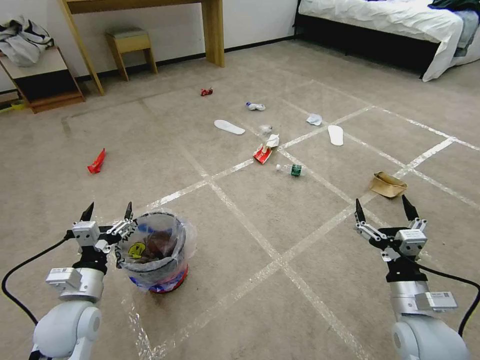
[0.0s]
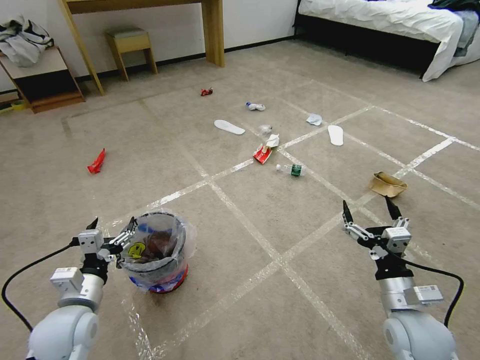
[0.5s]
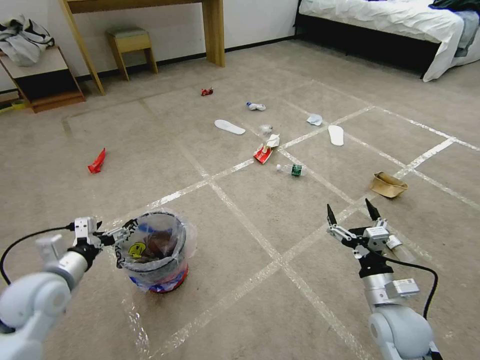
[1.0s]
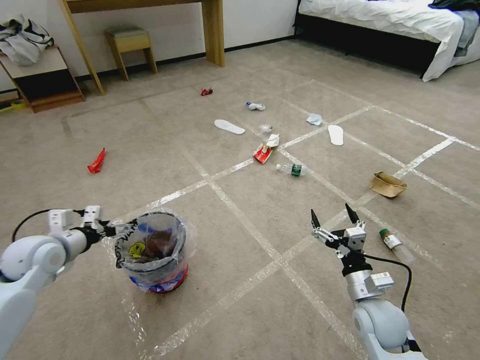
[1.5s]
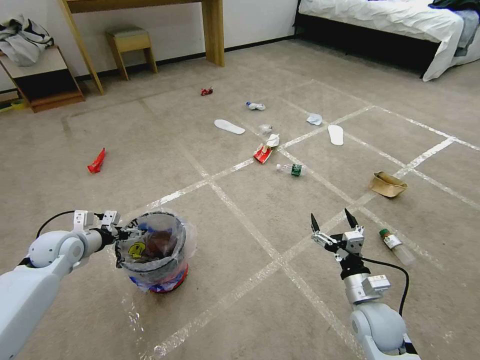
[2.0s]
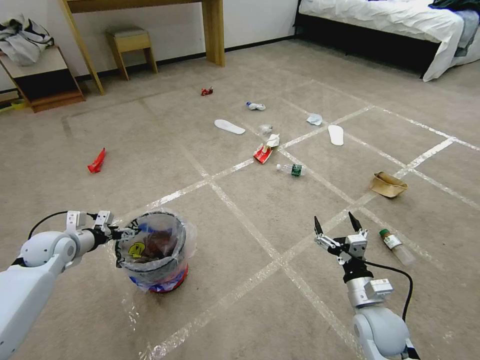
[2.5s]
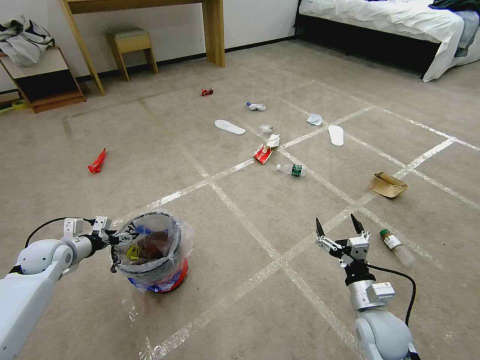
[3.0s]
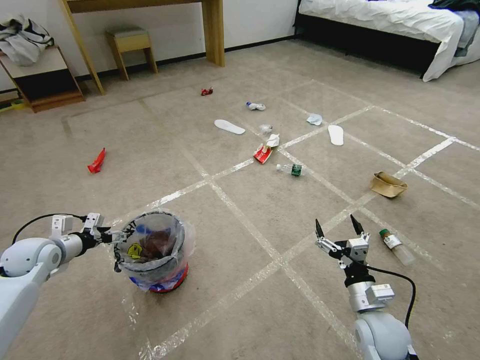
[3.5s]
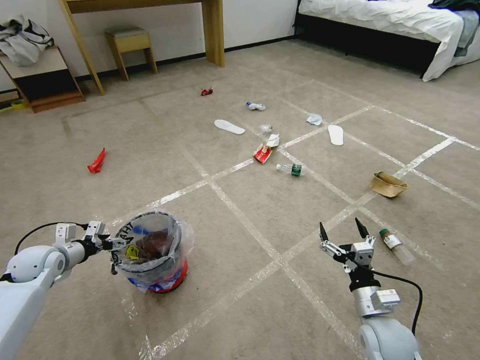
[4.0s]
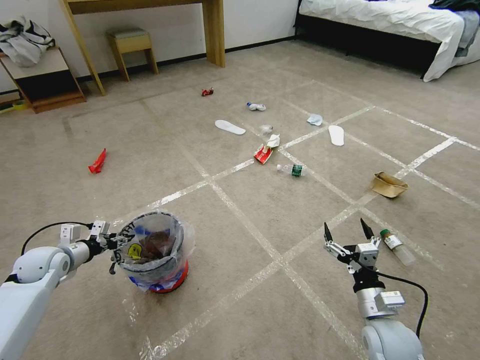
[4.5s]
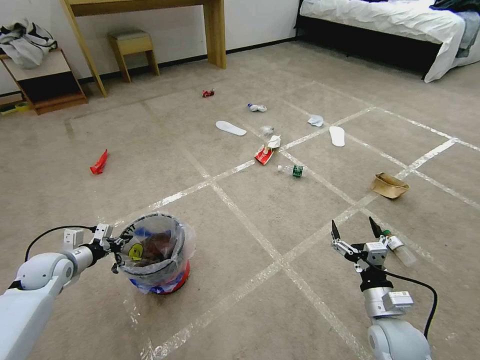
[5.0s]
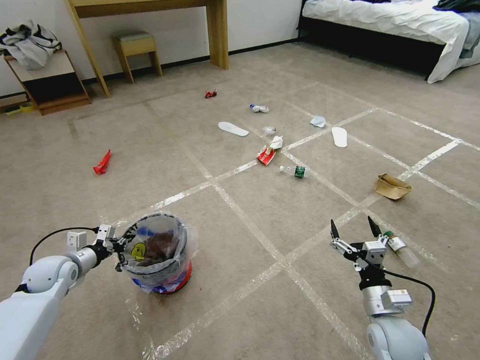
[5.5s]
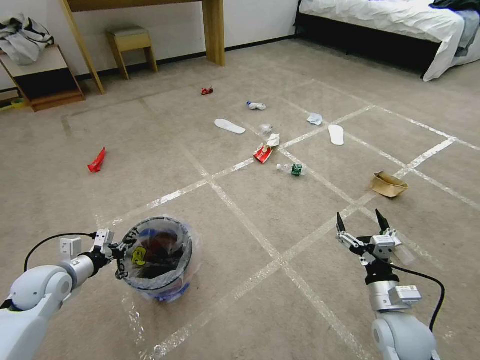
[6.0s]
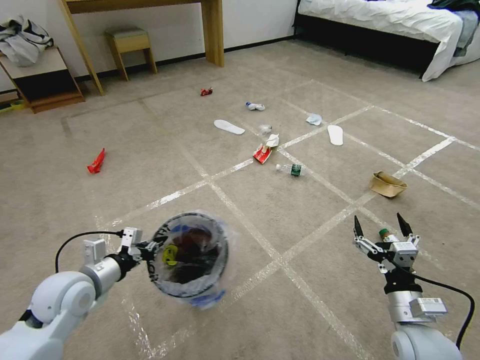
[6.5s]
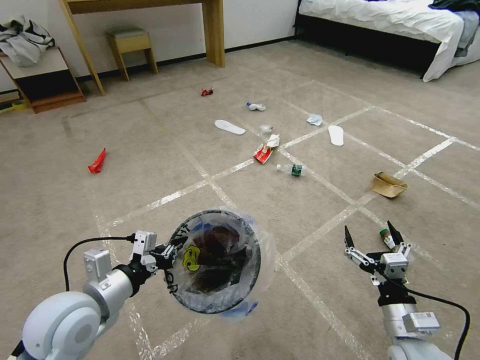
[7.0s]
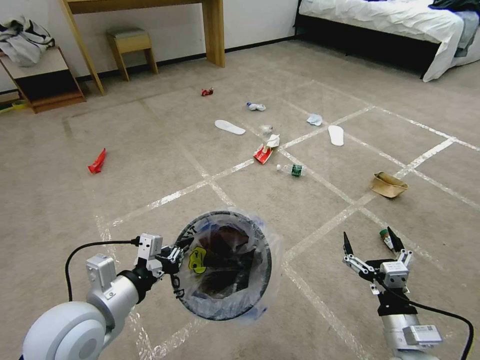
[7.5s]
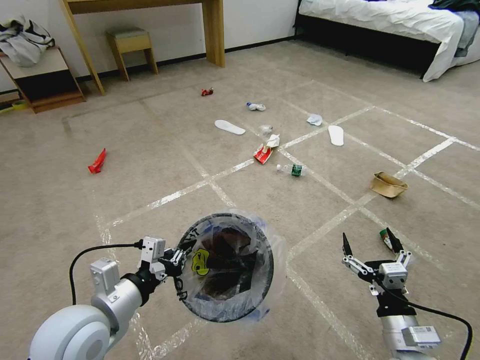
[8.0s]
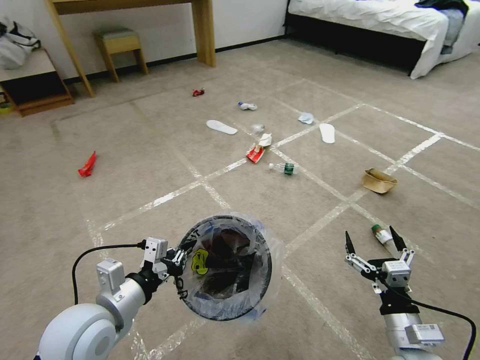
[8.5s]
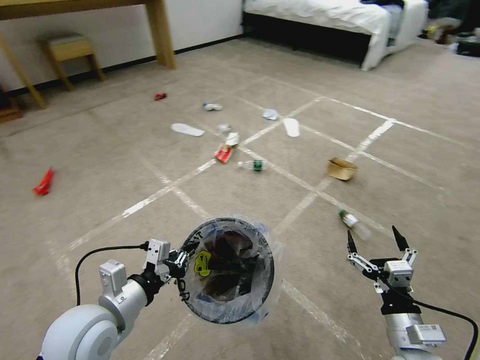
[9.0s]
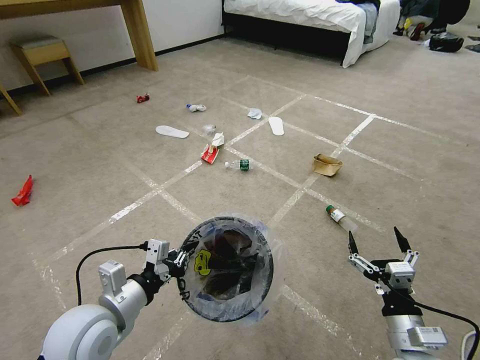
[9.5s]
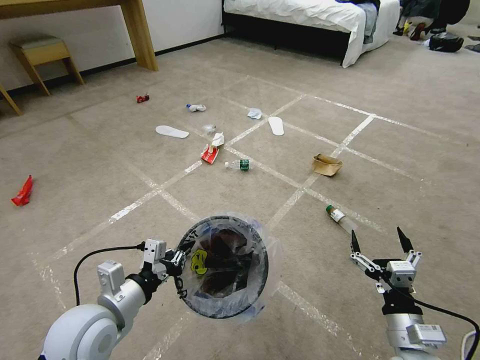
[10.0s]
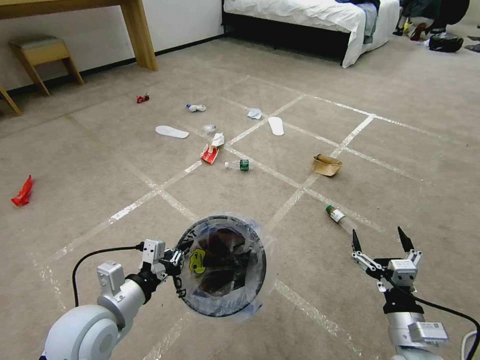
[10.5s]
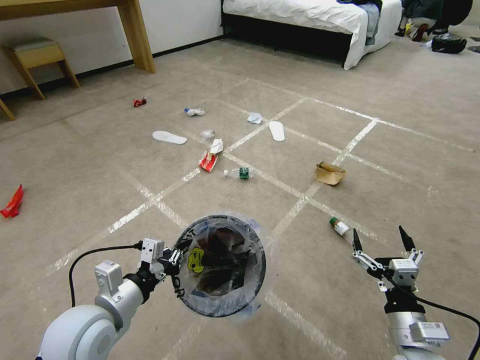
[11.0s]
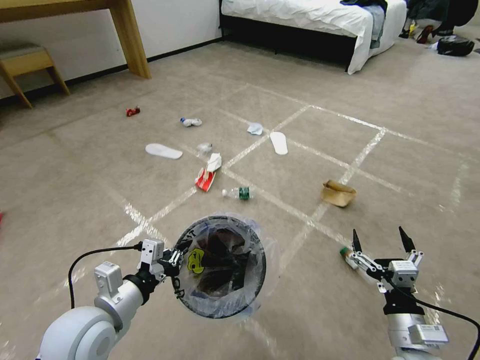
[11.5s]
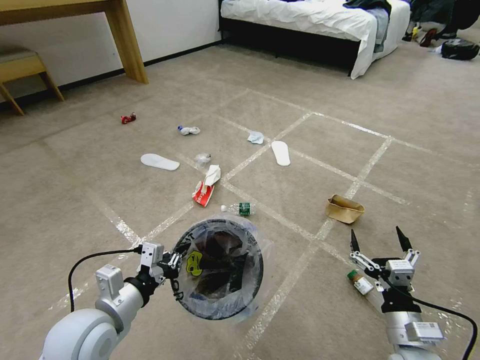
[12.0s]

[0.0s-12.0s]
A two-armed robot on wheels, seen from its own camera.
Task of the whole recording: Pick up the trash bin and place the garbage on the floor into it.
2.0s to 4.0s: The left gripper goes about 5 cm to the left.
4.0s to 6.0s: The left gripper shifts about 10 cm backward and to the right, and closes its fingers.
6.0s to 8.0s: The left gripper goes roughly 25 cm to the right, backward and upward. The right gripper shifts approximately 5 cm backward.

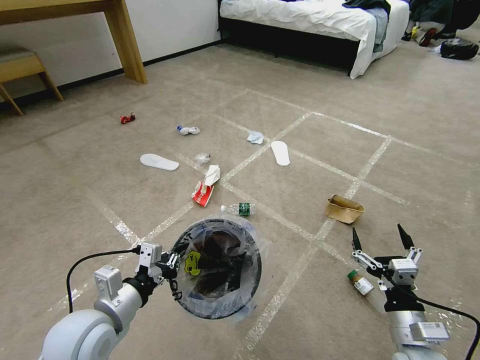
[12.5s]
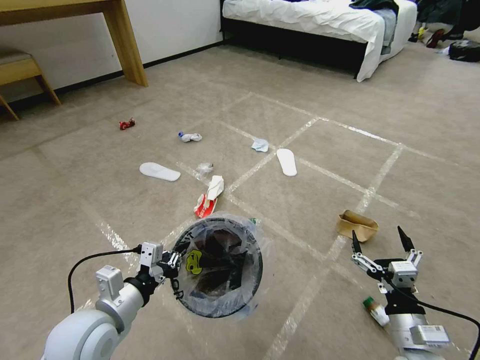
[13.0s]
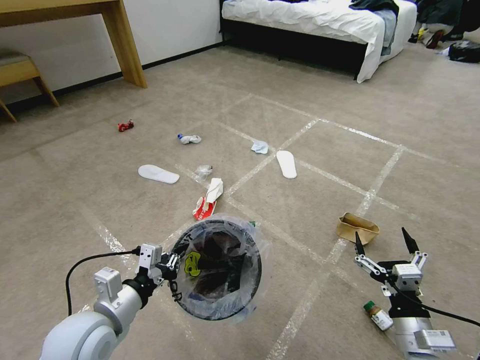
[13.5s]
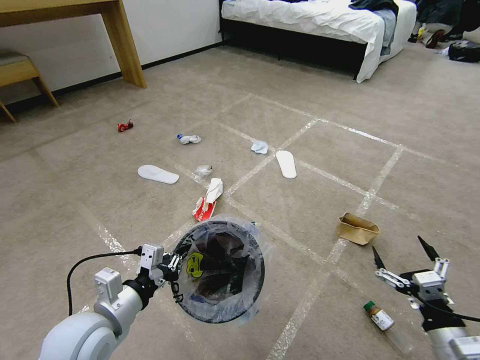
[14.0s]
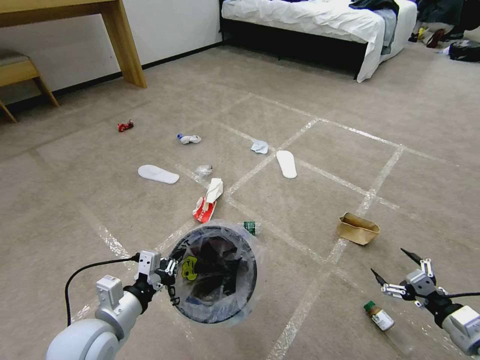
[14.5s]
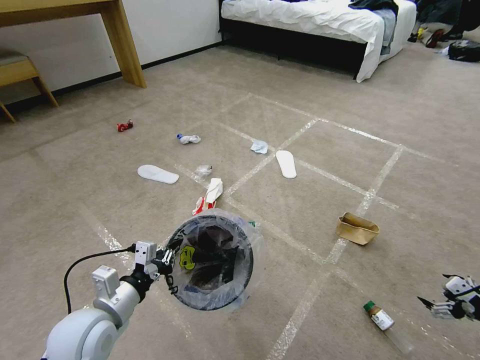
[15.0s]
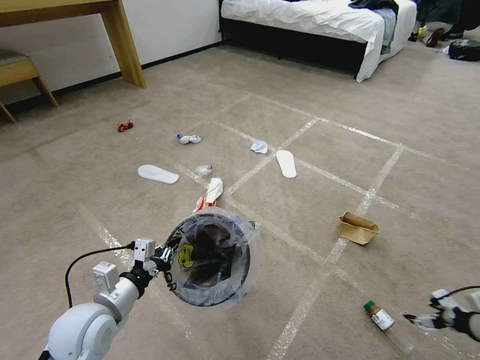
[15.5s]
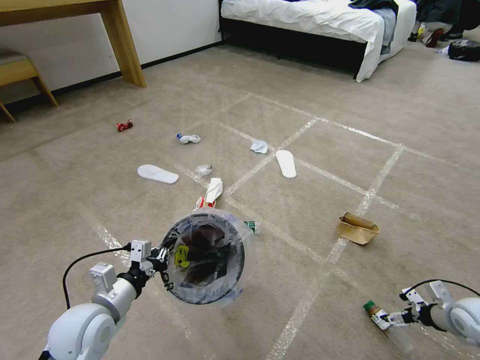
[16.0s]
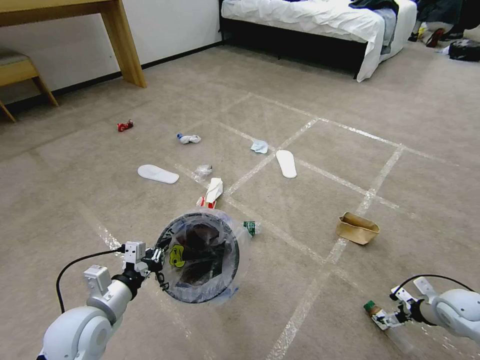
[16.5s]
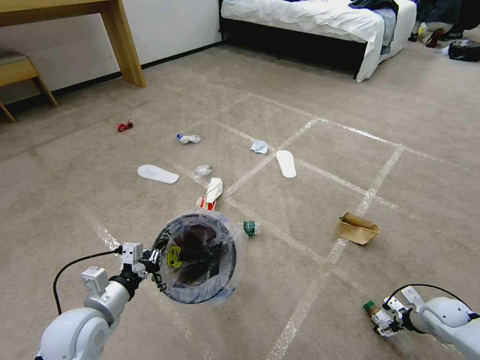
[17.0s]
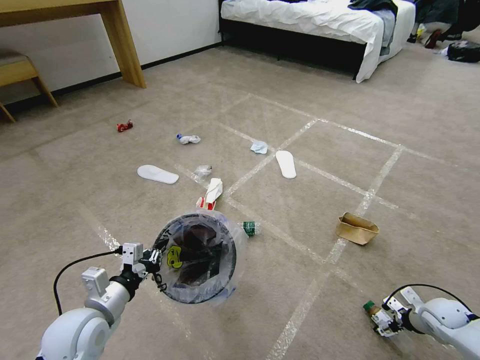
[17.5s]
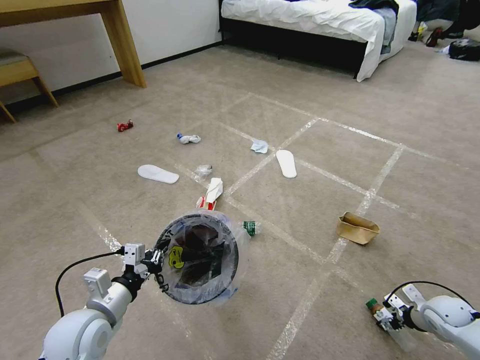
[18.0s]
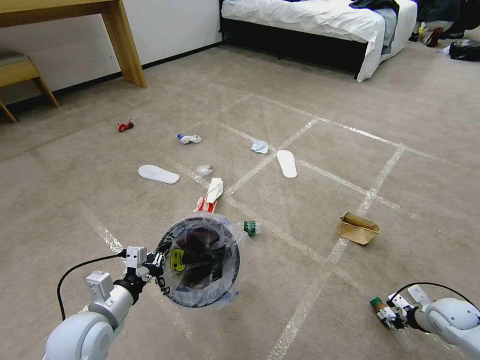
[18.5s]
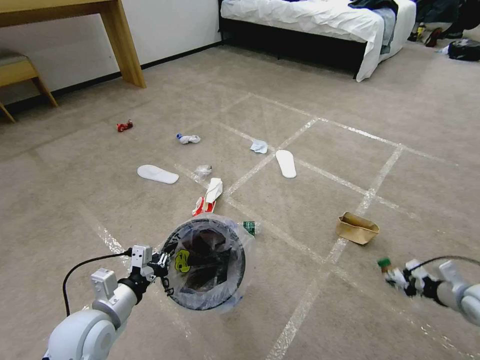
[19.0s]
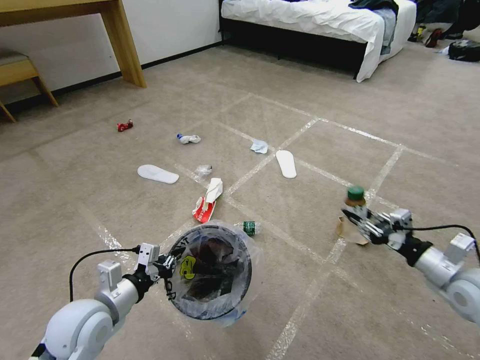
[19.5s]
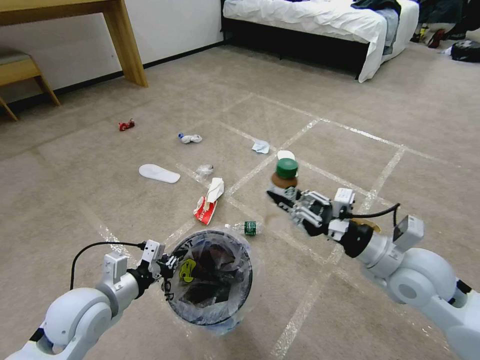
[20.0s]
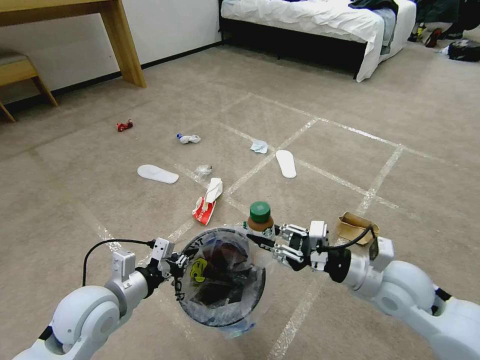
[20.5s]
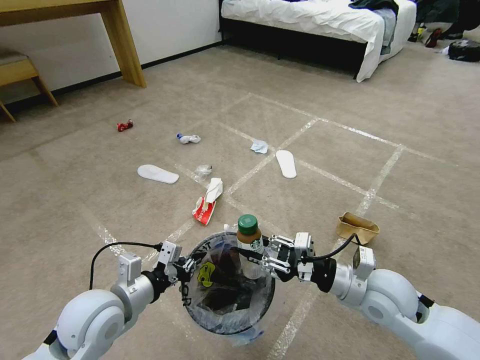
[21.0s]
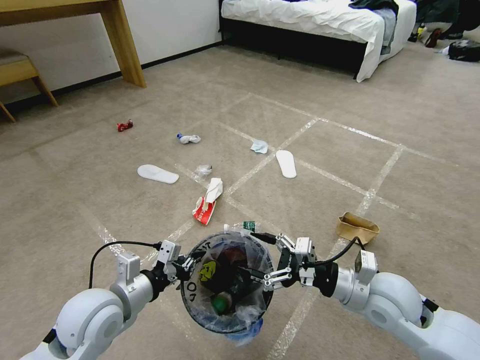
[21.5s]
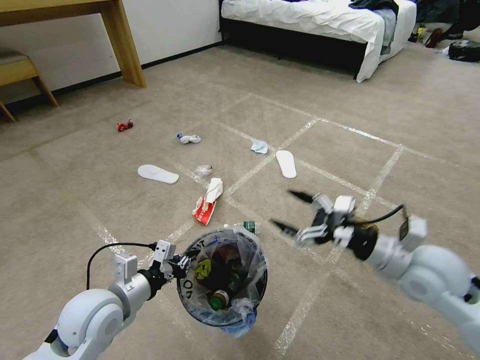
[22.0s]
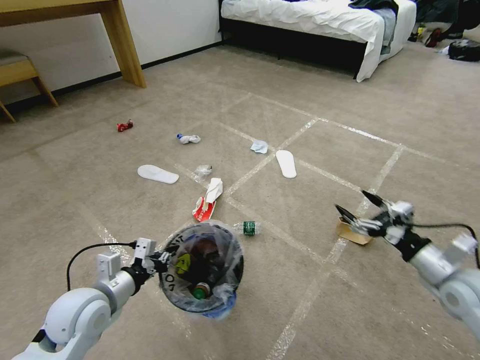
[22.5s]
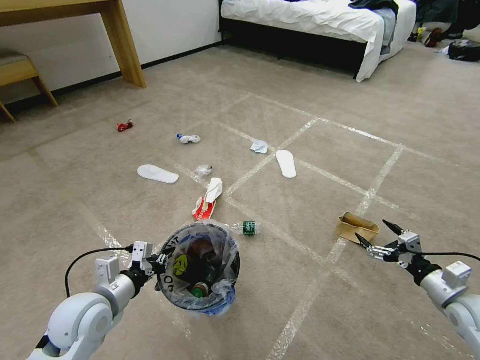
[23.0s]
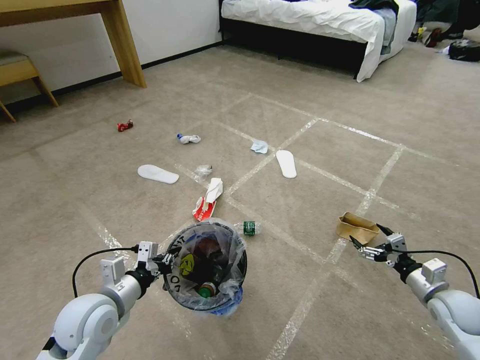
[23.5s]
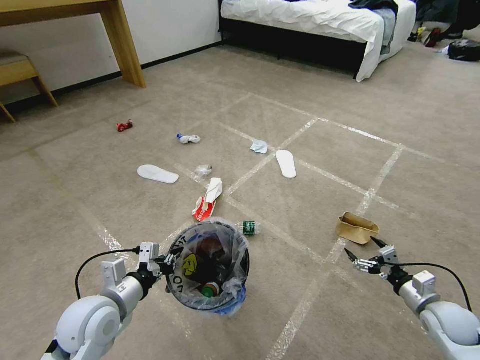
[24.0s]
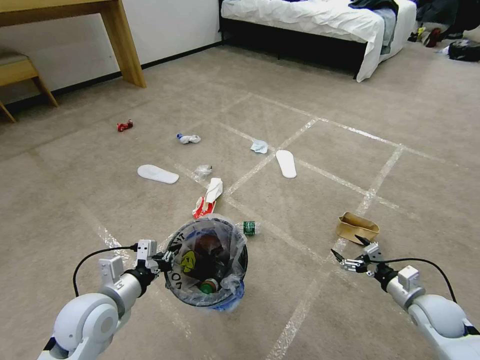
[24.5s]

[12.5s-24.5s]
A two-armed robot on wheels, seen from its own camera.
Task of the whole recording: Pick up the trash bin and place the garbage on the floor into it.
12.5s to 14.5s: The right gripper heads to the right, covering some 15 cm.
14.5s to 16.5s: The right gripper is displaced forward, downward and to the right by about 20 cm.
16.5s to 18.5s: The right gripper closes up.
18.5s to 20.5s: The right gripper heads to the left and upward, covering about 35 cm. The left gripper travels upward by about 5 cm.
20.5s to 22.5s: The right gripper heads to the right, covering roughly 15 cm, and opens.
22.5s to 24.5s: The right gripper shifts approximately 15 cm downward.

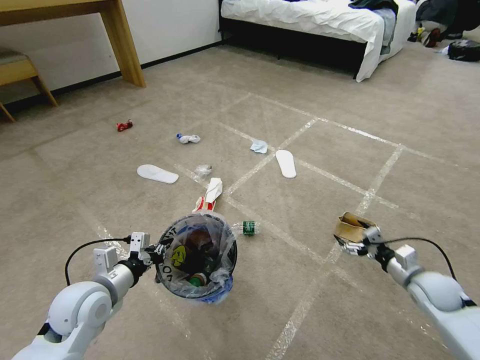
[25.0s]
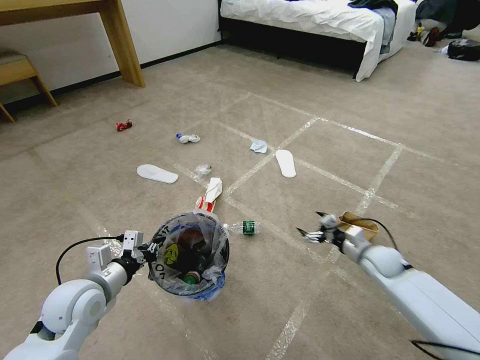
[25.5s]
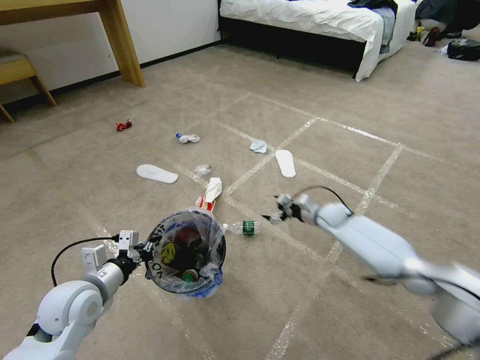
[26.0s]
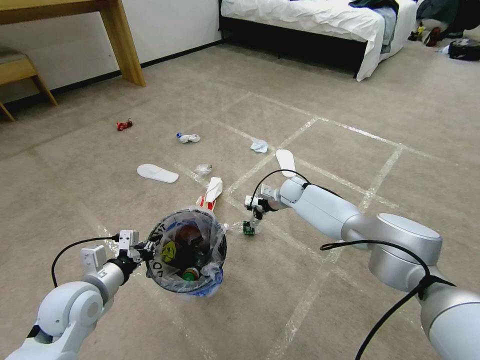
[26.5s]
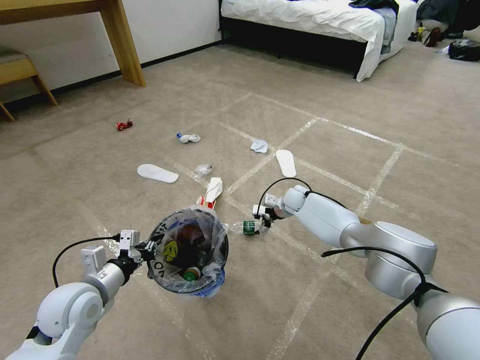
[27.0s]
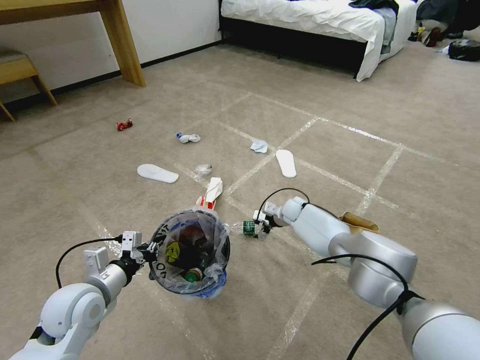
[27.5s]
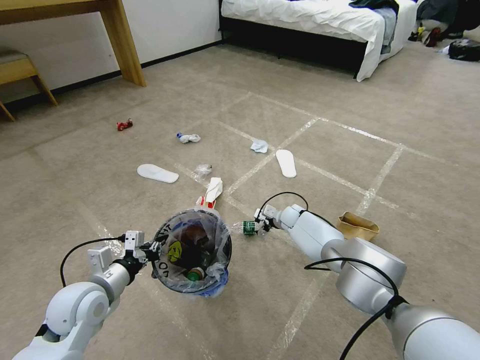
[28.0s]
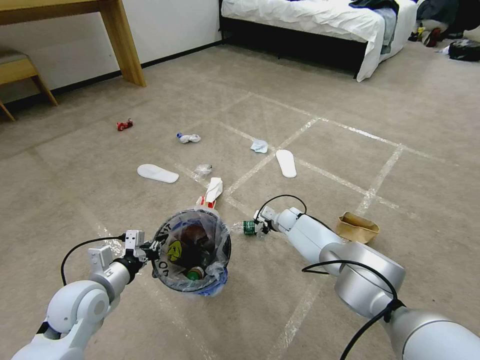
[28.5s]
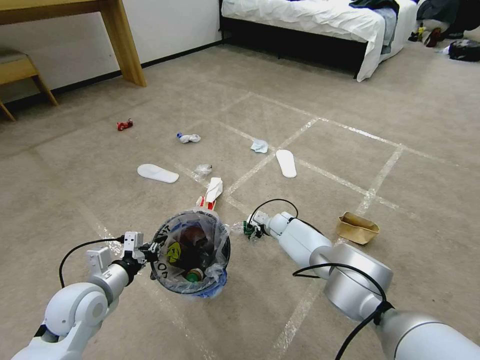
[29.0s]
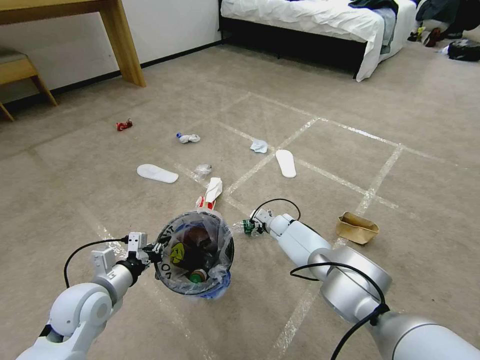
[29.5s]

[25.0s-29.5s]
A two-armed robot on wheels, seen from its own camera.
Task of the whole recording: Pick up the trash bin and place the garbage on the floor into it.
25.0s to 27.0s: The right gripper travels forward and to the left by some 40 cm.
27.0s to 29.5s: The right gripper is displaced downward by approximately 10 cm.
